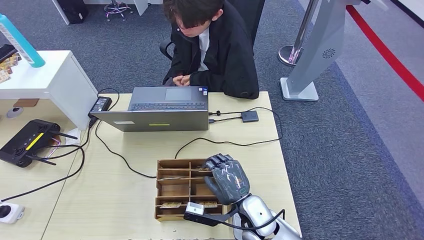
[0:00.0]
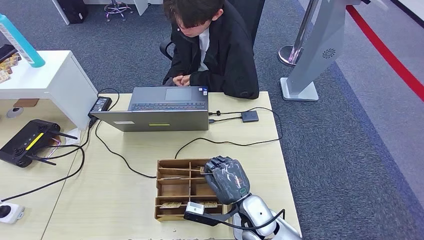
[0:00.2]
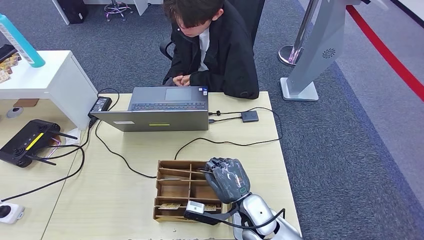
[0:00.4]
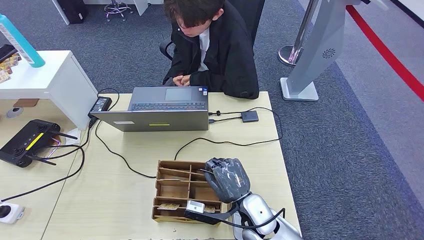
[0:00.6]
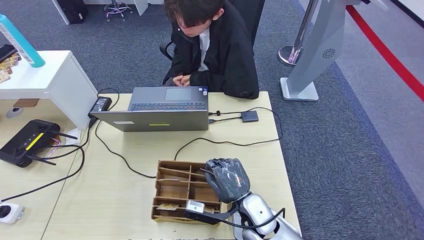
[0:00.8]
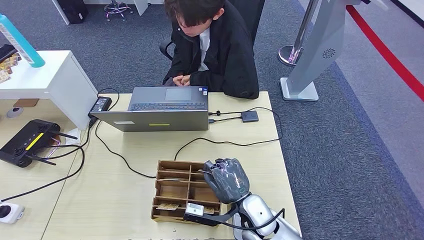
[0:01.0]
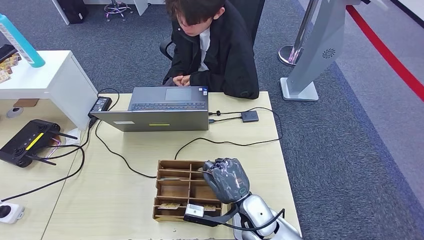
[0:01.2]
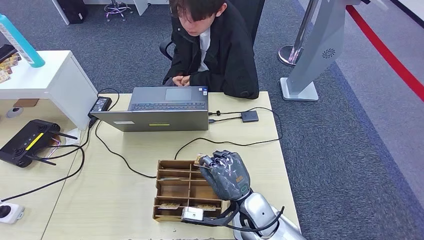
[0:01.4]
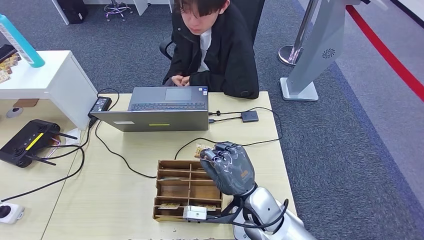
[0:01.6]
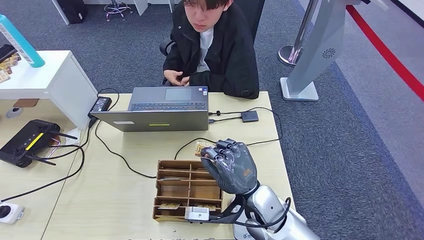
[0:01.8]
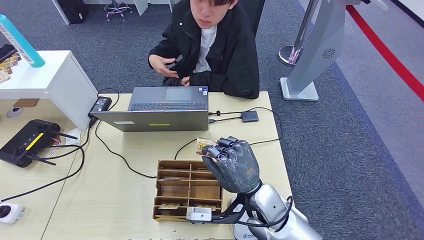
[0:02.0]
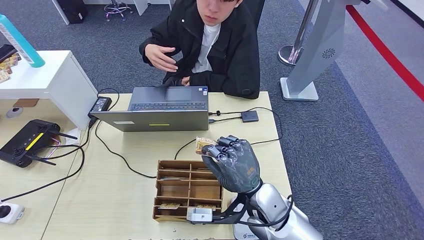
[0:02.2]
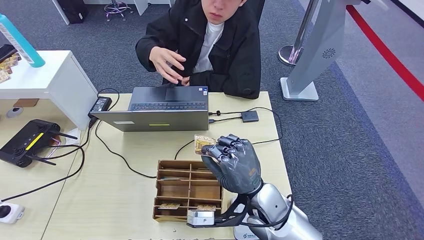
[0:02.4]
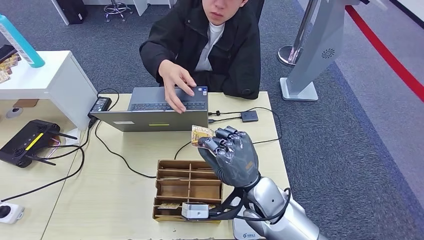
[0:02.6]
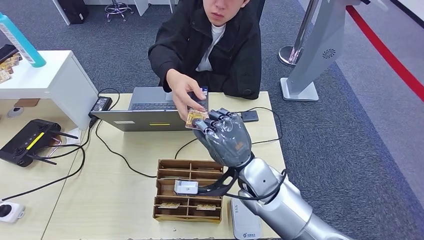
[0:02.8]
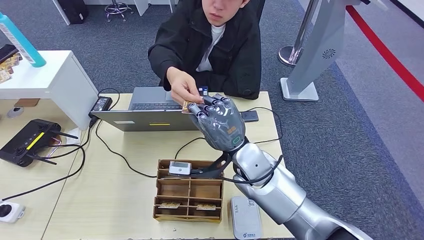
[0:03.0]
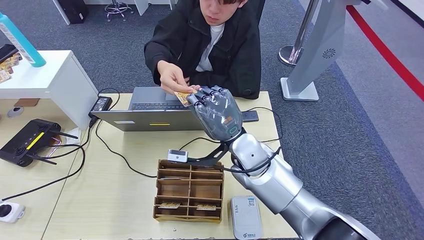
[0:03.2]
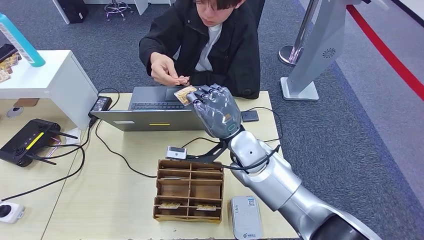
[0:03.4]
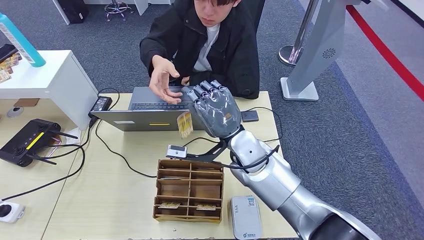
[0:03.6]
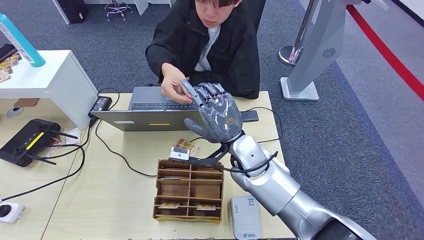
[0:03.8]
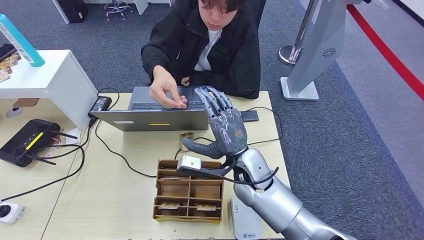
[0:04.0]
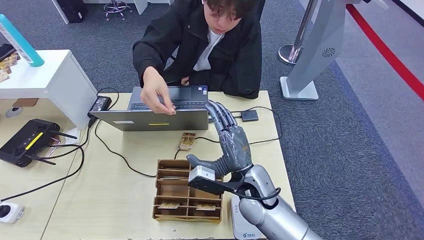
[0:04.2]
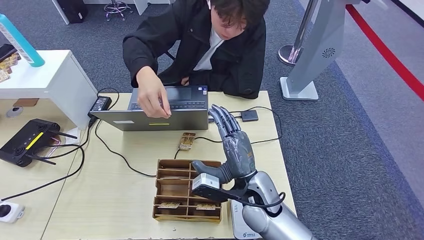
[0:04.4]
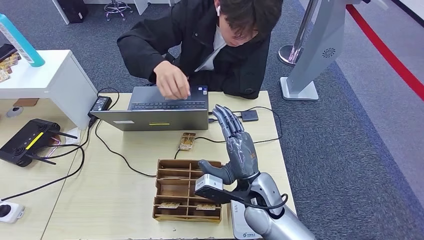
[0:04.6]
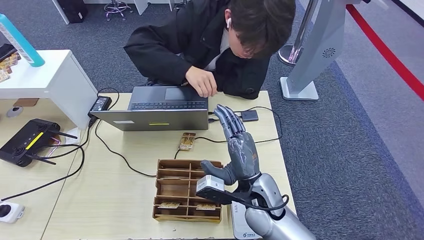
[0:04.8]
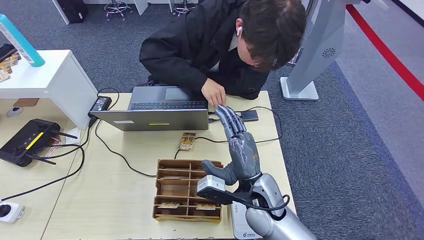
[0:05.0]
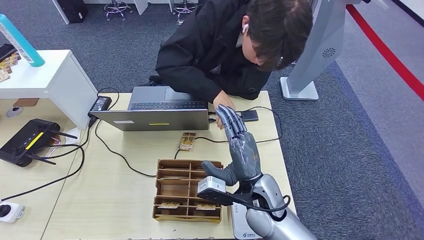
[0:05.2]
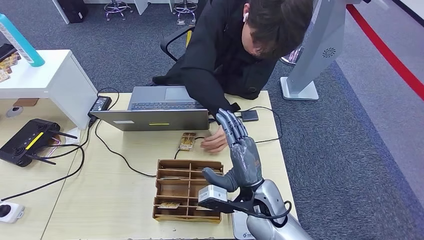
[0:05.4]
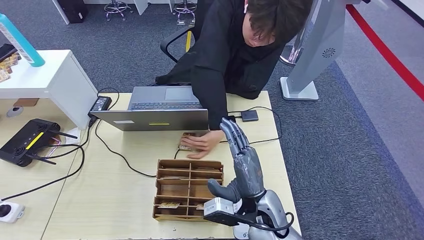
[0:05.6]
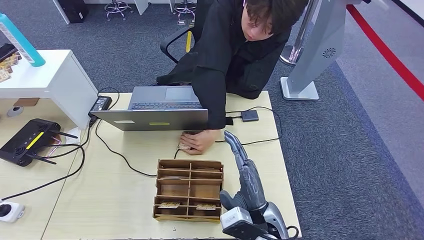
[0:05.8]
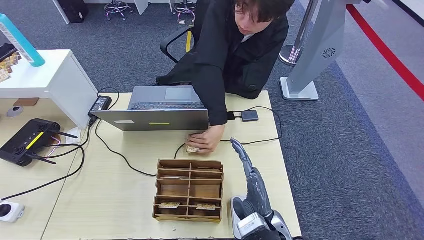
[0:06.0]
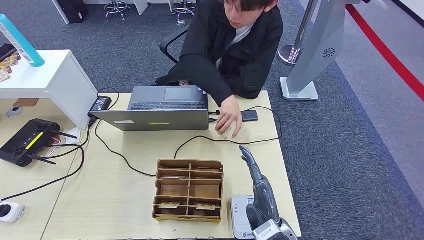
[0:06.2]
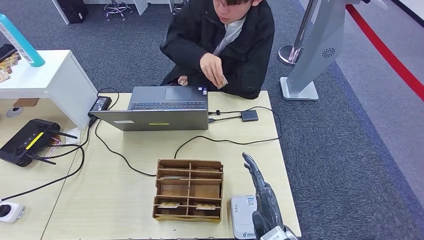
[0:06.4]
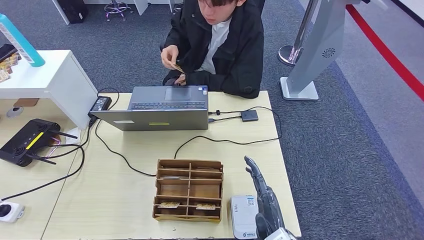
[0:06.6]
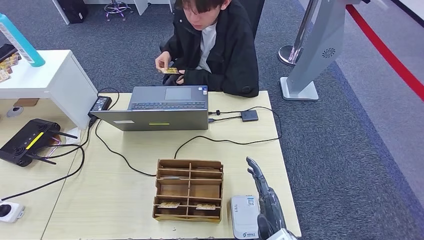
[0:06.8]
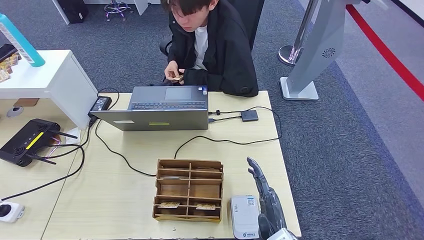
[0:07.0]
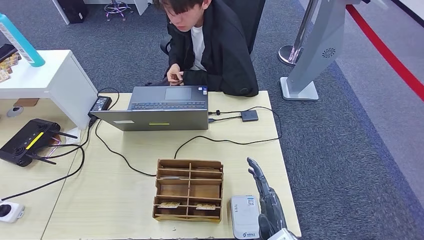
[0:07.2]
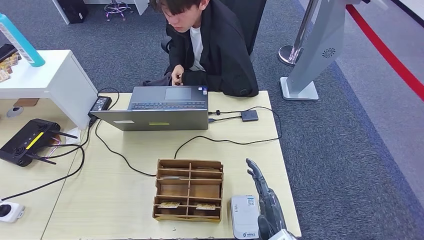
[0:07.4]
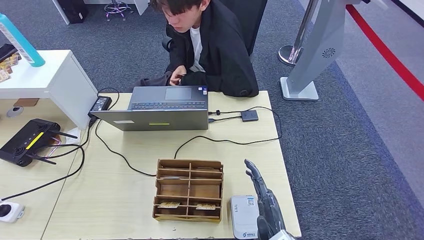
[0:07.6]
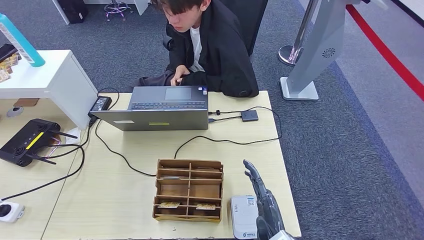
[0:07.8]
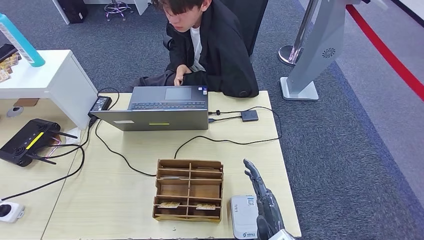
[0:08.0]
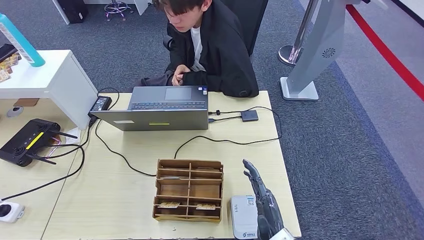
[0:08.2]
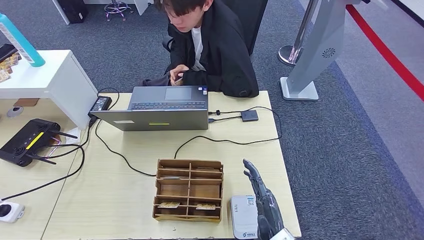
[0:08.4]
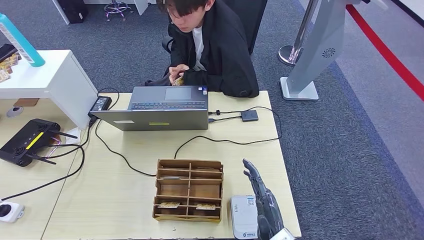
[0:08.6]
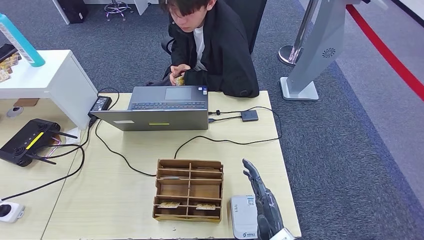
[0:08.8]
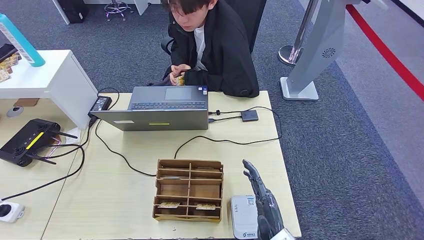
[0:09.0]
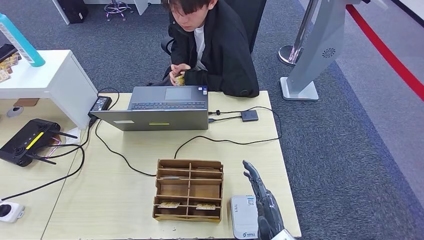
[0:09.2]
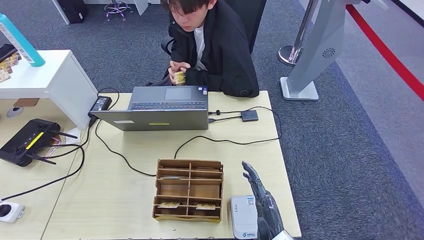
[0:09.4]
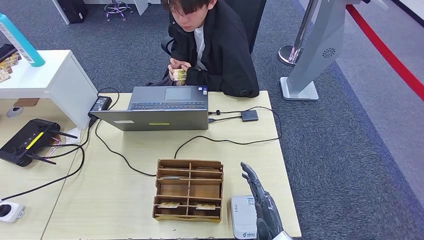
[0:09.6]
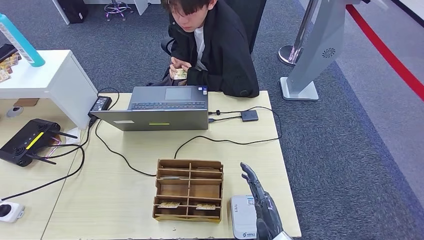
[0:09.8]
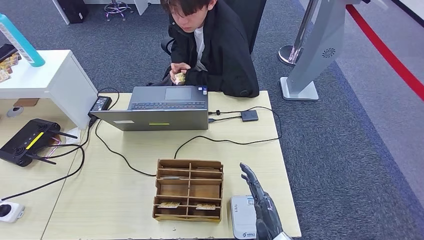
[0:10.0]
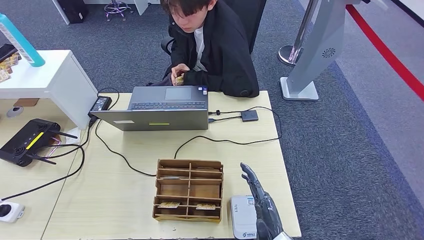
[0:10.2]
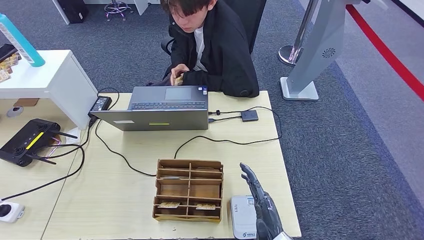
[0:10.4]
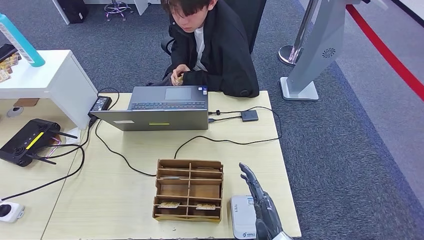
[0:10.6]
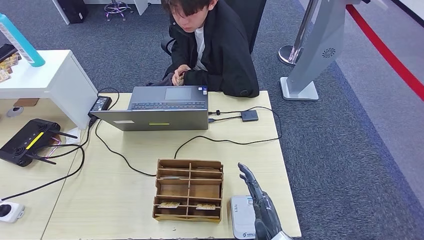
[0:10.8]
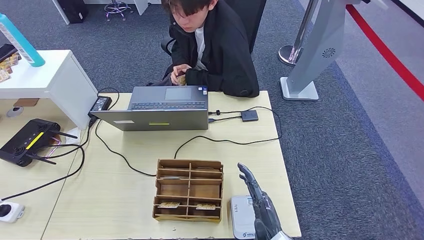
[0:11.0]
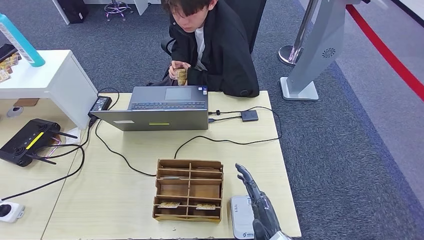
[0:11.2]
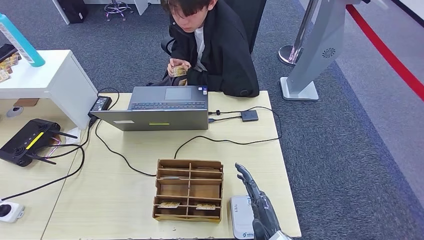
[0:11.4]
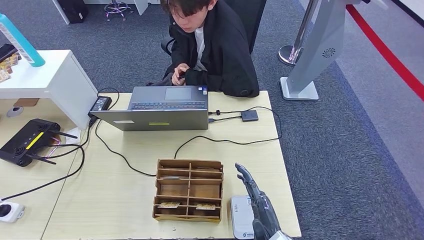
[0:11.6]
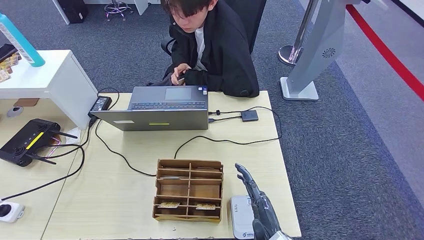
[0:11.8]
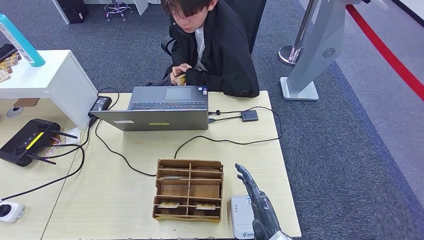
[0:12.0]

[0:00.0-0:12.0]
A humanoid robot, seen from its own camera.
0:00.0 to 0:01.6: The right hand goes about 5 cm upward.
0:01.6 to 0:03.0: The left hand is displaced forward by approximately 5 cm; the right hand moves upward and forward, about 10 cm.
0:03.0 to 0:04.4: The right hand shifts approximately 10 cm downward and backward.
0:04.4 to 0:06.0: The right hand travels backward by some 10 cm.
0:06.0 to 0:07.6: The right hand changes place by roughly 5 cm.
0:07.6 to 0:09.0: Both hands stay about where they are.
0:09.0 to 0:12.0: Both hands stay about where they are.

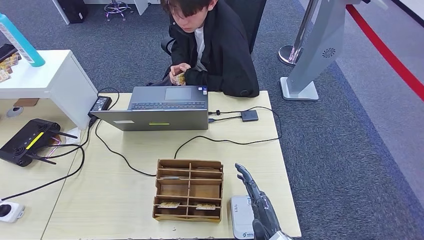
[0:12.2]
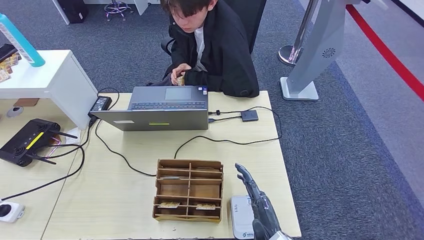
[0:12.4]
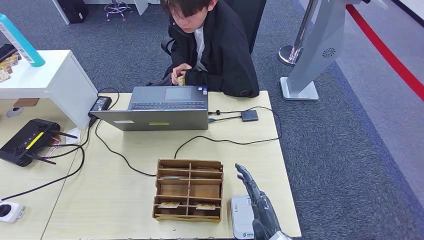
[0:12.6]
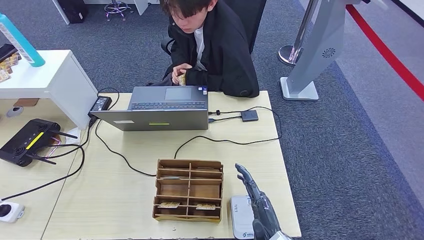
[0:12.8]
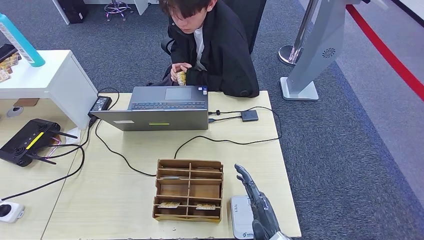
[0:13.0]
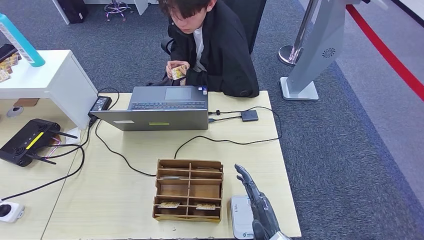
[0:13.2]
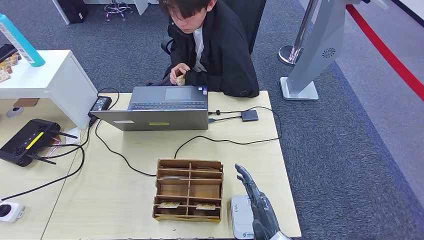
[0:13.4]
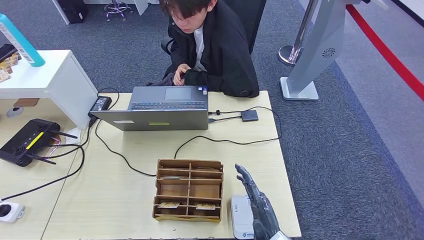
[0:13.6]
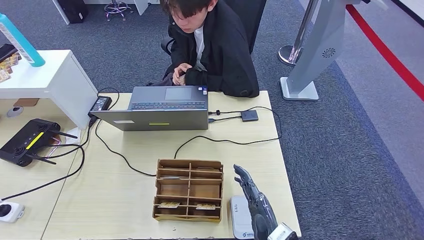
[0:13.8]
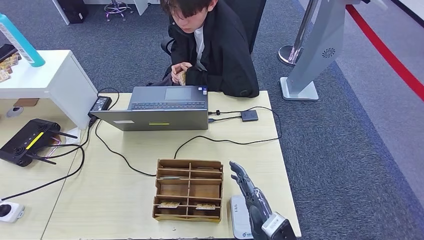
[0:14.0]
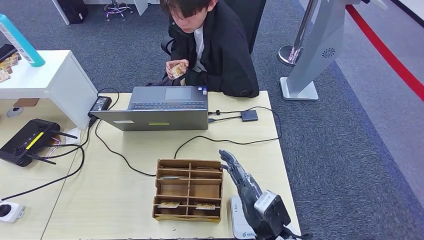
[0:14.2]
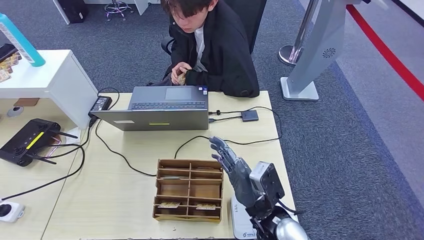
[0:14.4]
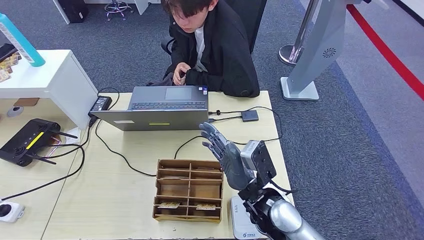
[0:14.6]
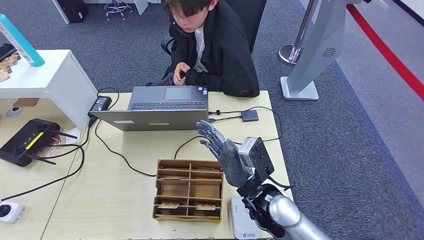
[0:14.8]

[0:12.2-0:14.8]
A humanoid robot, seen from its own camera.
Step, 0:12.2 to 0:14.8: Hand the room key to the person.
0:12.2 to 0:13.4: The two hands keep their place.
0:13.4 to 0:14.8: The right hand goes some 15 cm forward and upward.
